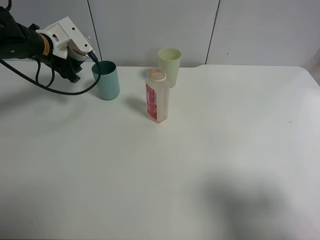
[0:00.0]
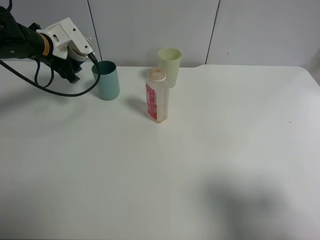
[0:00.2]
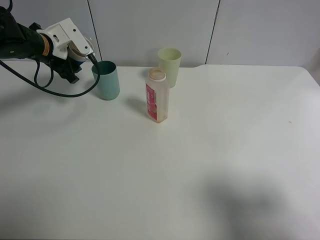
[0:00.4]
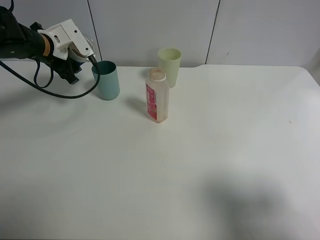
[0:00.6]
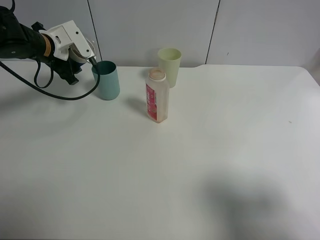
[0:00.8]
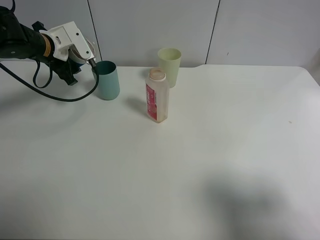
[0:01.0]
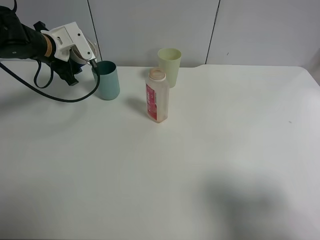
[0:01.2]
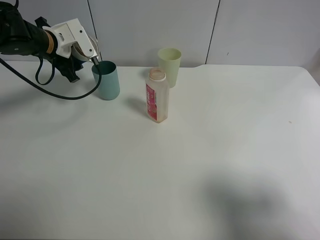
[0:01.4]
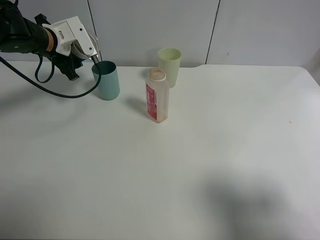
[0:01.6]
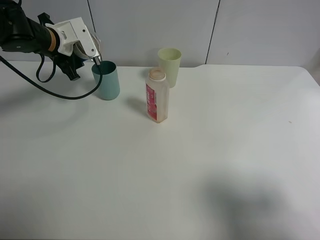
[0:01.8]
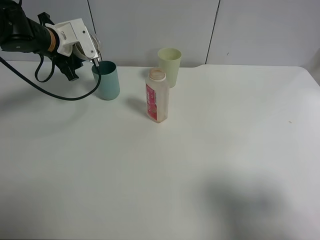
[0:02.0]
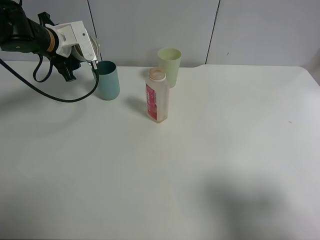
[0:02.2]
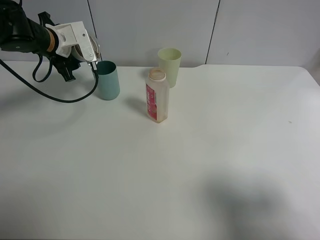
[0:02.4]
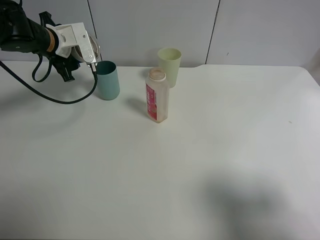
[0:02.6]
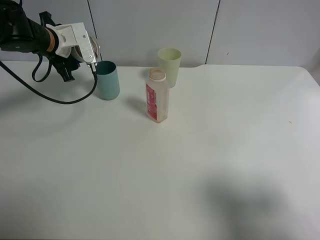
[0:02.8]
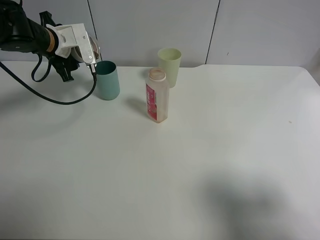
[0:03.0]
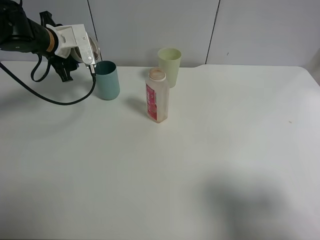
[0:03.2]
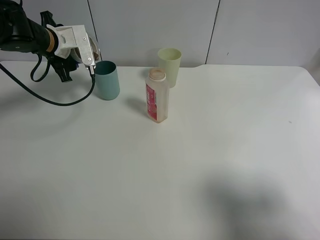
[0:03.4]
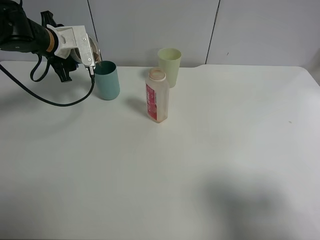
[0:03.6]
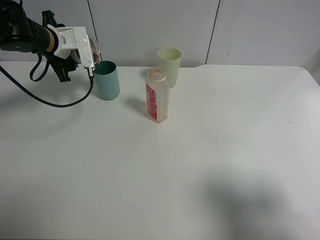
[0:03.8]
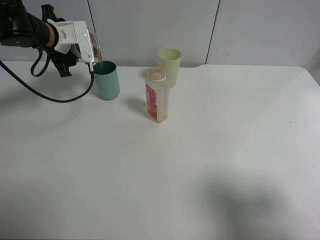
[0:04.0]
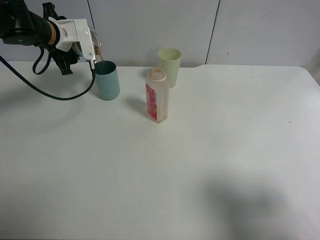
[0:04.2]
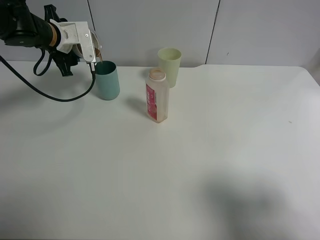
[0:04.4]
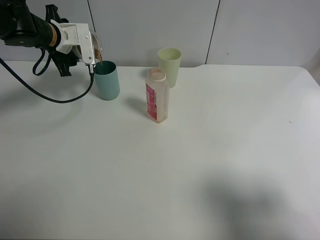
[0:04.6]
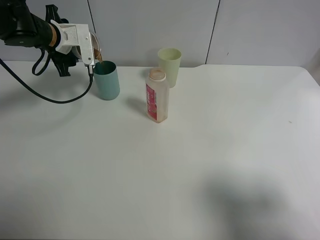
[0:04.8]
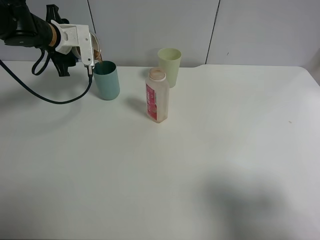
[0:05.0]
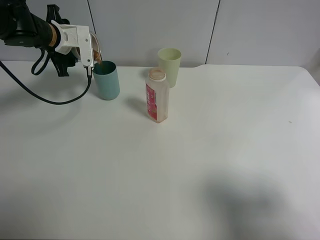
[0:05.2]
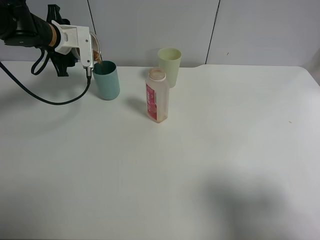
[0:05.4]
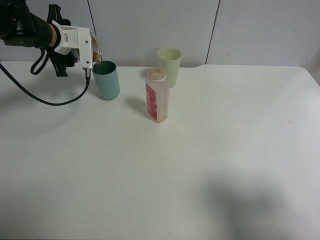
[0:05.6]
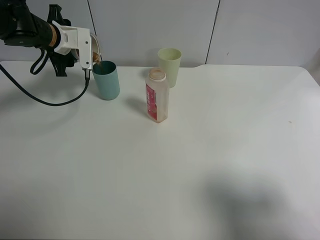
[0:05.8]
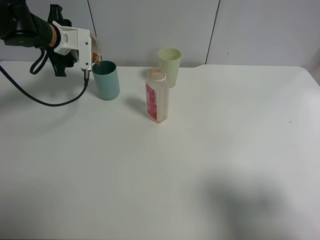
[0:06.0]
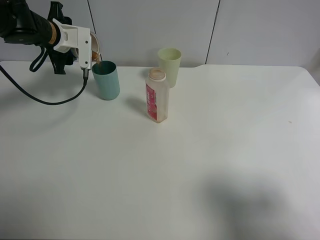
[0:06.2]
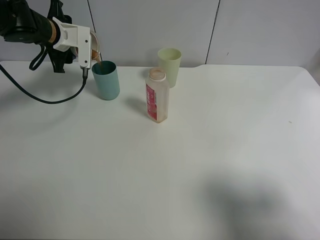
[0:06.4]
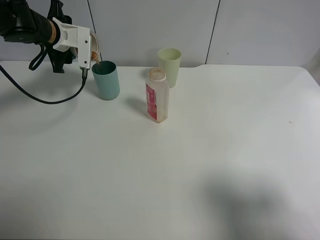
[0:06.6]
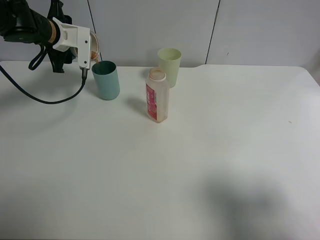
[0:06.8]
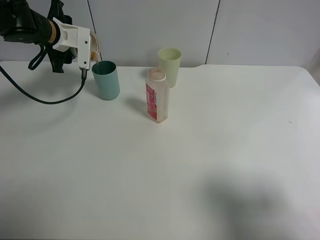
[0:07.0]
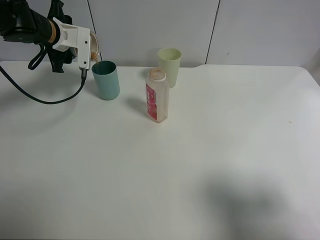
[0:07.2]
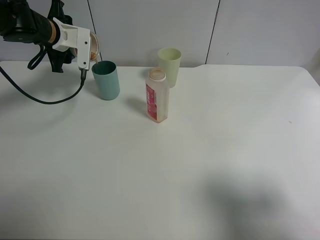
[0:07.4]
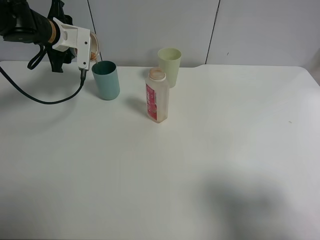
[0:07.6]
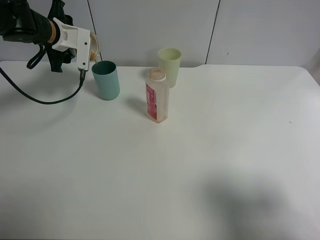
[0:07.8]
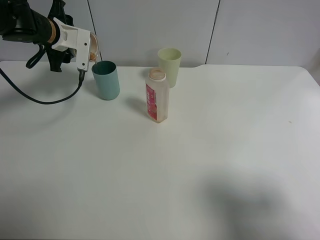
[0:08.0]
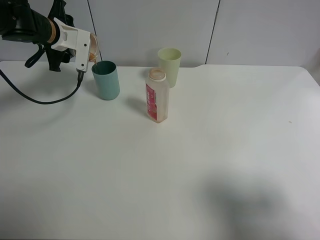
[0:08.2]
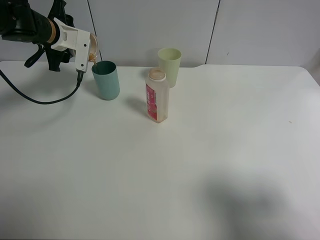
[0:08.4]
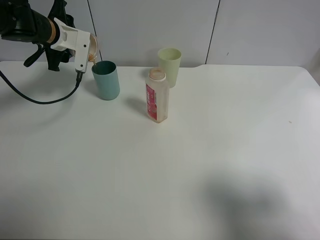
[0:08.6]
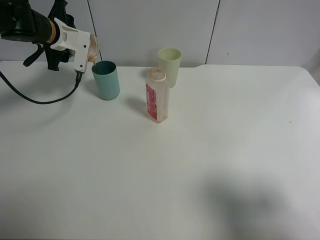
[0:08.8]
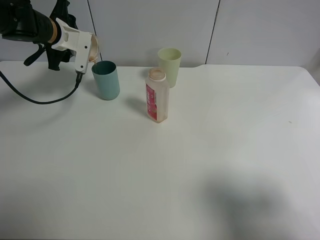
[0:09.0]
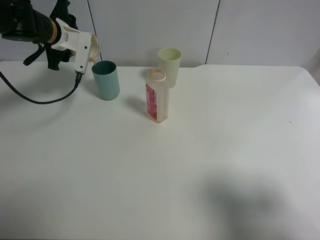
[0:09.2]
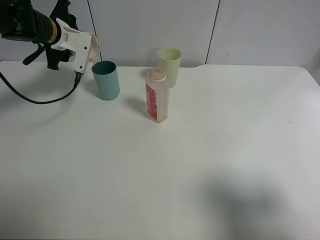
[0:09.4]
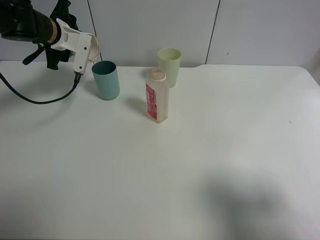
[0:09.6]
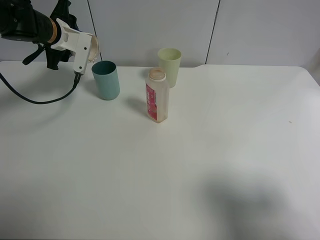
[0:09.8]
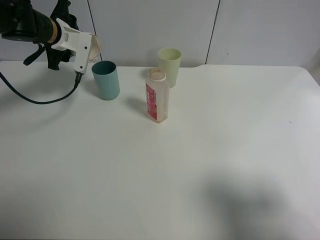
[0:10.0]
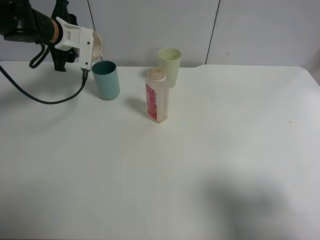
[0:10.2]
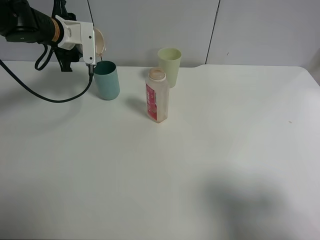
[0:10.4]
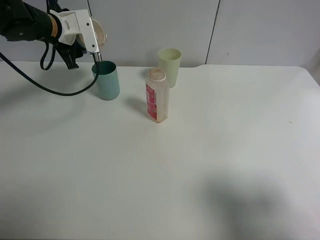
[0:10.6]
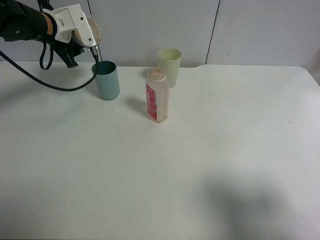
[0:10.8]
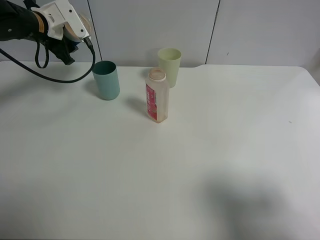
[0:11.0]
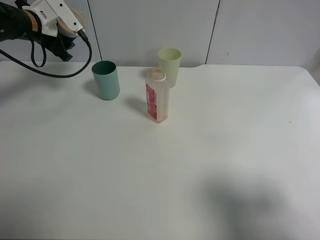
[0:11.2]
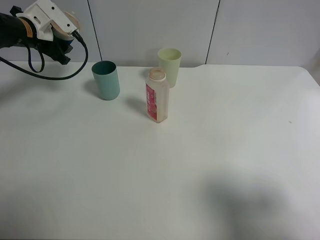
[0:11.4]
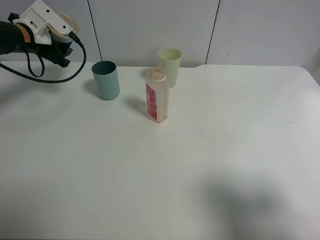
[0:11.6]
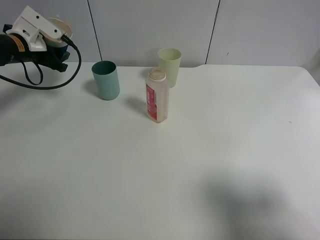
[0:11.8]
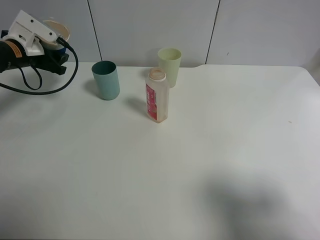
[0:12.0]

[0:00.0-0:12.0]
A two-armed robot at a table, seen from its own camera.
Task of the whole recording: use a clamp to hold the bottle of the drink, pour the beverage into a random cup, then clamp the cup containing the drink and pour the drink into another random cup.
Step, 0:00.0 to 0:10.8: Pour the water into the blue plastic cup with left gripper.
0:00.0 to 0:01.6: The grippers make only small movements.
0:01.6 to 0:04.4: The grippers stay close to where they were, moving slightly.
0:04.4 to 0:07.6: The grippers move only a little.
0:07.6 to 0:10.4: There are only small adjustments of the grippers.
0:10.4 to 0:12.0: The left gripper goes roughly 10 cm to the left.

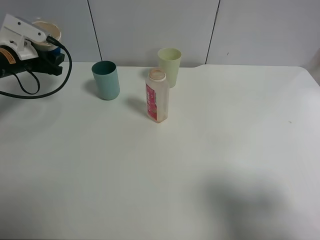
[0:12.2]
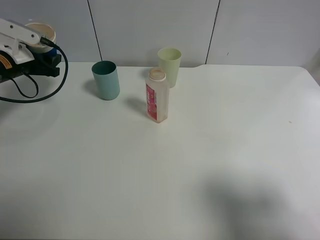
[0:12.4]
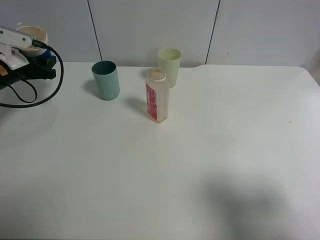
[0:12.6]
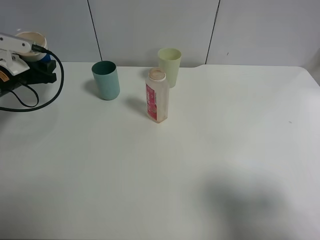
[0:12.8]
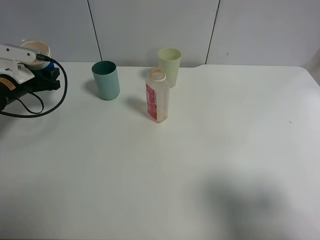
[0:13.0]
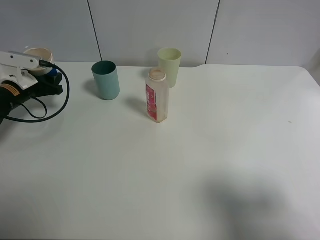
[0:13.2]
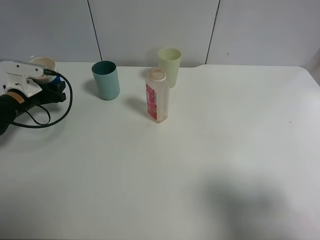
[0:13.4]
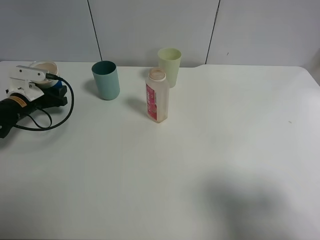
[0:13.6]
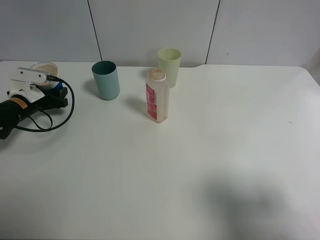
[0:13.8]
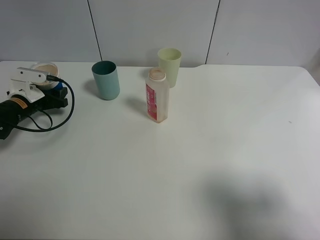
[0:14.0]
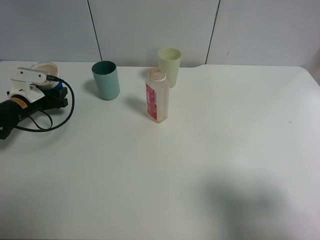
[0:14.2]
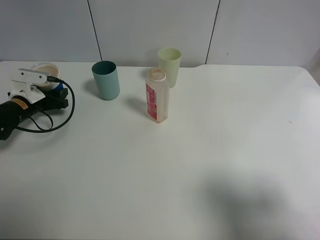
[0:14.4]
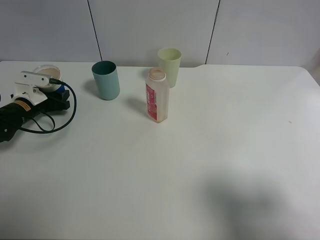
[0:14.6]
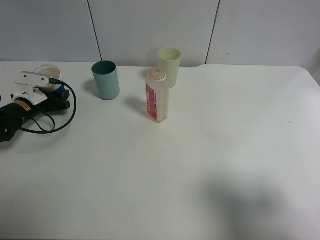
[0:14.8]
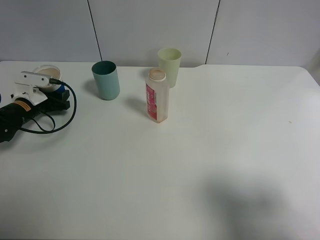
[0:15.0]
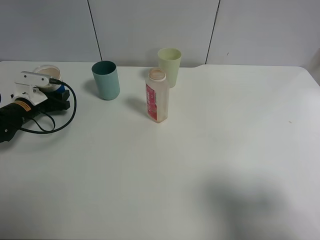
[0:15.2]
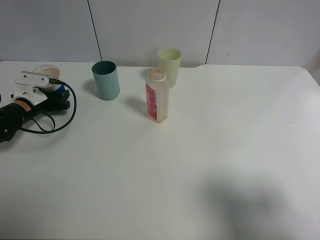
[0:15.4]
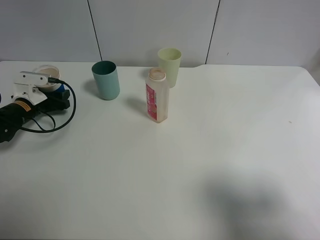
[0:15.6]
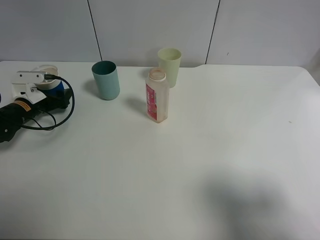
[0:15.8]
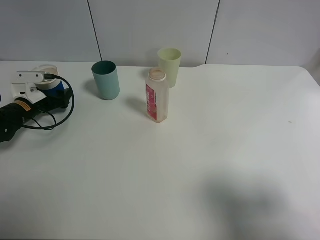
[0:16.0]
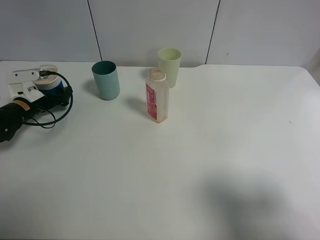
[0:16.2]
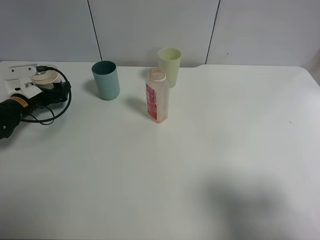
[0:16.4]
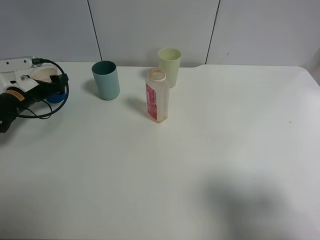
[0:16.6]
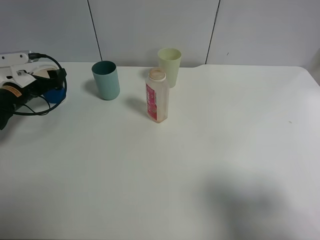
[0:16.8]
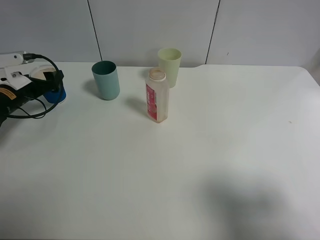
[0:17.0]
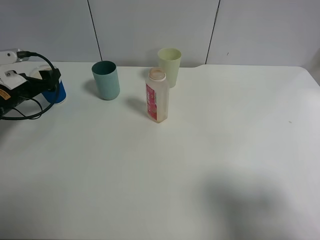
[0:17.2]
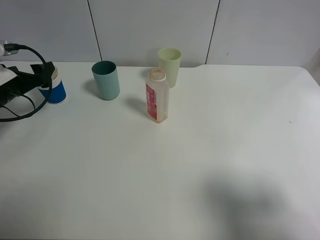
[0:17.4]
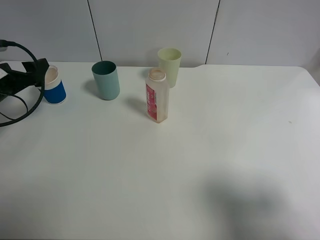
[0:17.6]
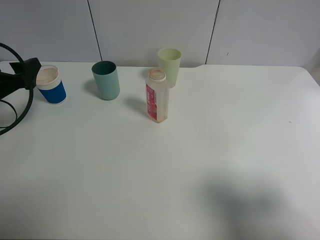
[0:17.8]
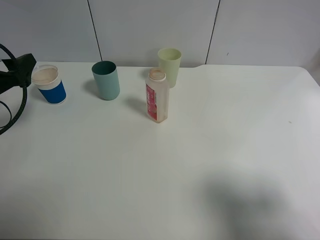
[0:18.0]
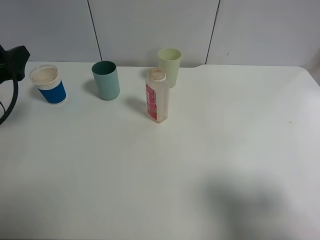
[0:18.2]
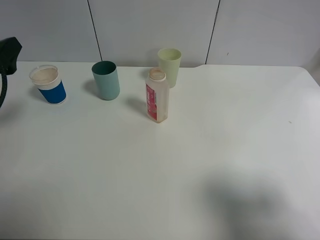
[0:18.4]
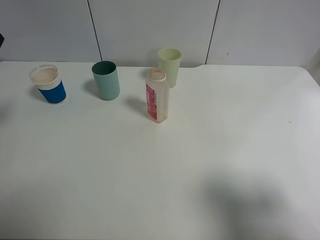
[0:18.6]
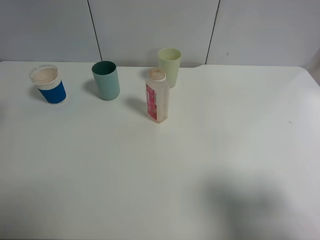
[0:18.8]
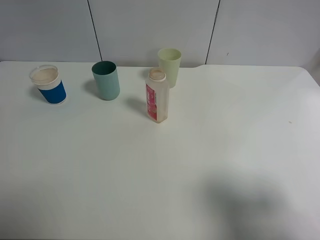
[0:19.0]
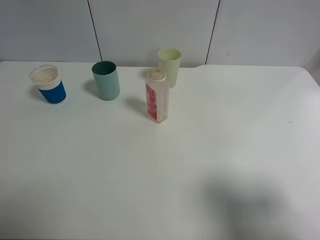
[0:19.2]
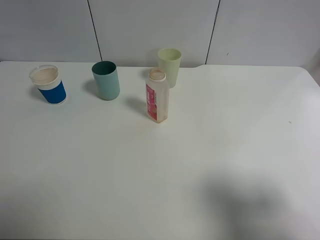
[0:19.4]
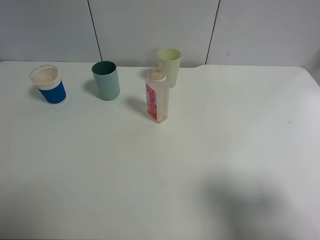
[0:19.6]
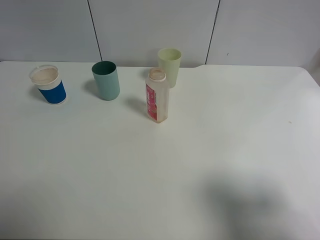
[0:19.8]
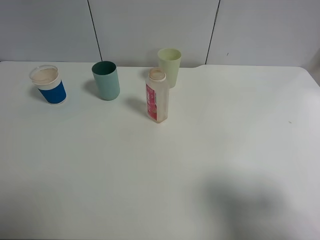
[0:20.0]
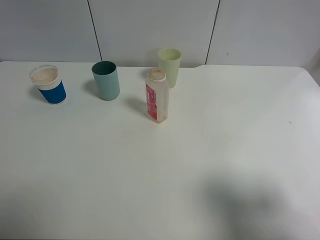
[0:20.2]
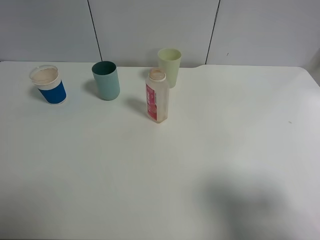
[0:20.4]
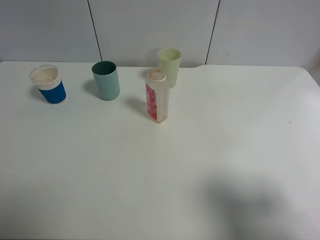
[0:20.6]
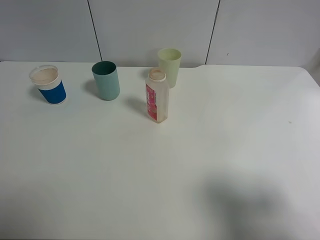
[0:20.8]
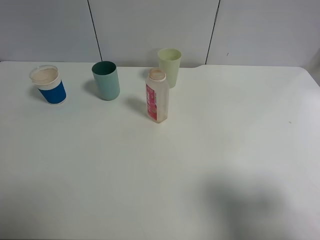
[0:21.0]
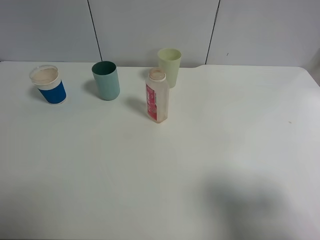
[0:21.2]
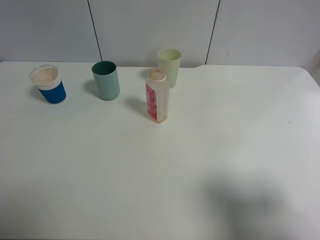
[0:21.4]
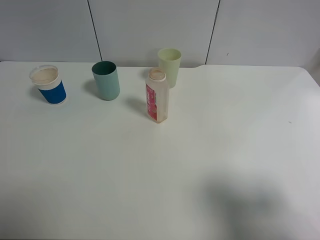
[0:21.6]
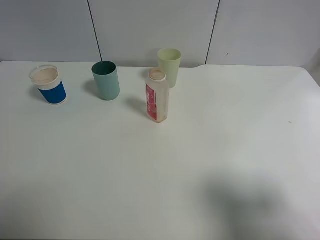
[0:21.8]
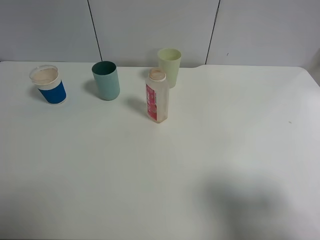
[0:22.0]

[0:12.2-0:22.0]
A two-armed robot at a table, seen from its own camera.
Task of the whole recording: use a clamp to hold the bottle of the drink, pour the beverage into a random cup, then clamp the cup containing the drink and pour the drink into another random cup.
Step, 0:12.2 to 0:16.8: Place the paper cup on the table with left gripper.
0:12.2 to 0:13.6: The left gripper goes approximately 10 cm downward.
0:13.6 to 0:15.0: The grippers make only small movements.
0:15.0 to 0:16.4: The left gripper opens up.
0:16.4 to 0:17.8: The left gripper is displaced upward and backward by roughly 15 cm.
0:17.8 to 0:19.2: The left gripper heads backward and upward, covering approximately 15 cm.
